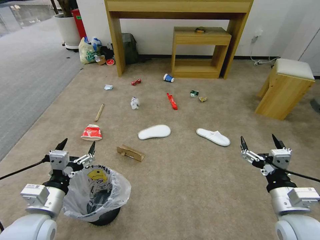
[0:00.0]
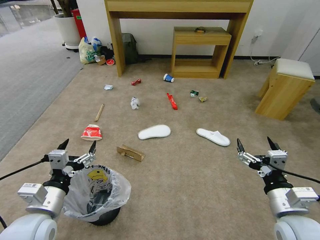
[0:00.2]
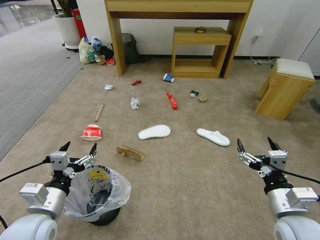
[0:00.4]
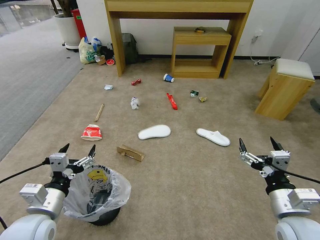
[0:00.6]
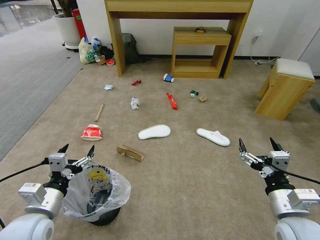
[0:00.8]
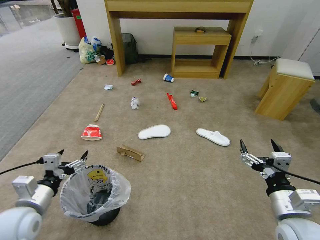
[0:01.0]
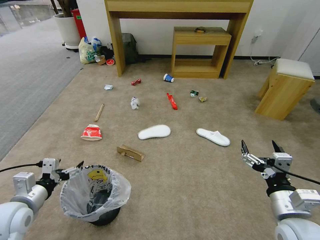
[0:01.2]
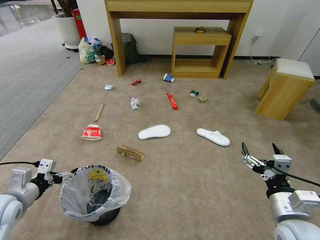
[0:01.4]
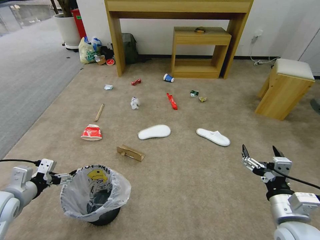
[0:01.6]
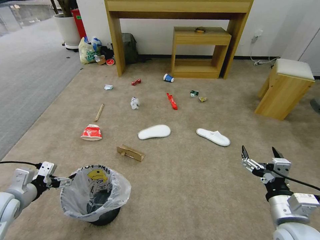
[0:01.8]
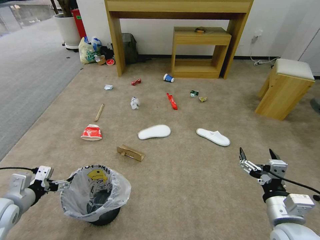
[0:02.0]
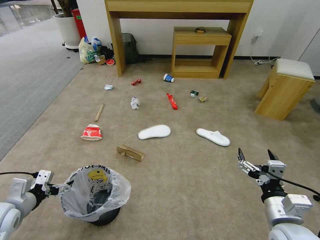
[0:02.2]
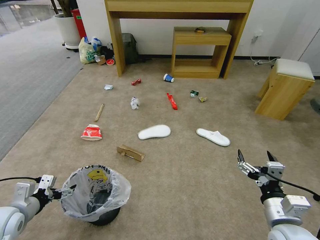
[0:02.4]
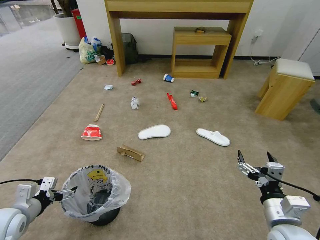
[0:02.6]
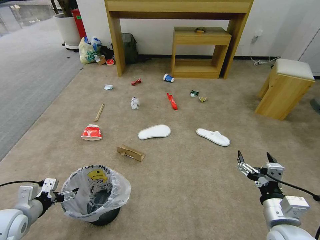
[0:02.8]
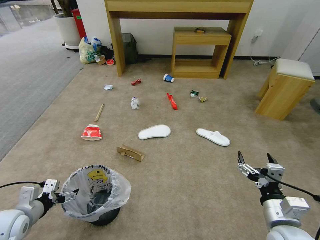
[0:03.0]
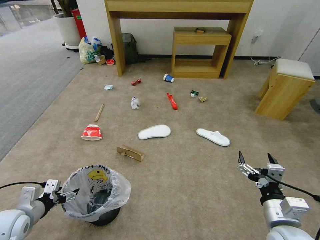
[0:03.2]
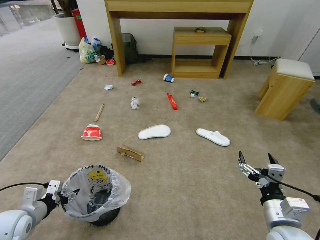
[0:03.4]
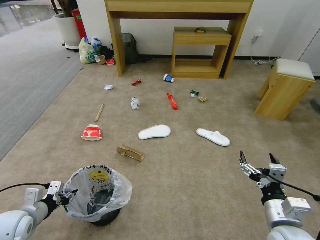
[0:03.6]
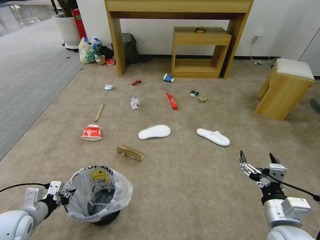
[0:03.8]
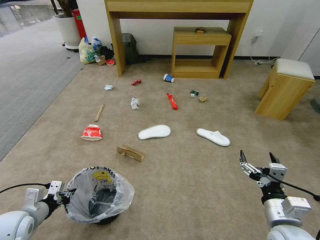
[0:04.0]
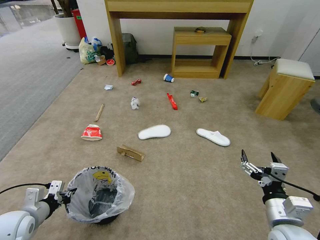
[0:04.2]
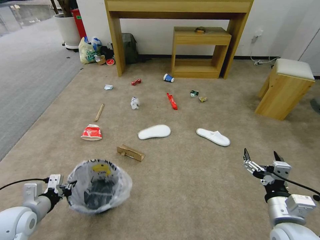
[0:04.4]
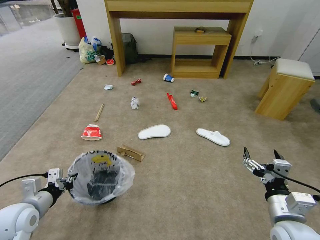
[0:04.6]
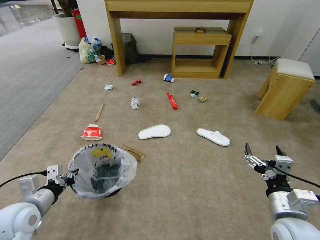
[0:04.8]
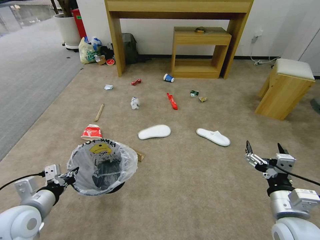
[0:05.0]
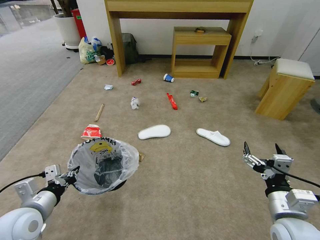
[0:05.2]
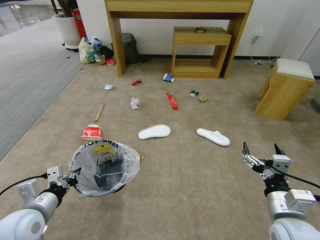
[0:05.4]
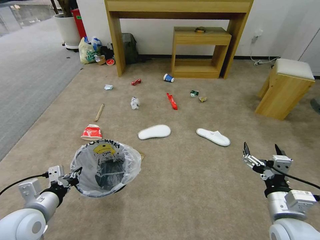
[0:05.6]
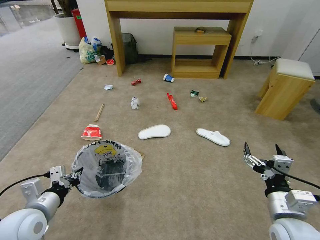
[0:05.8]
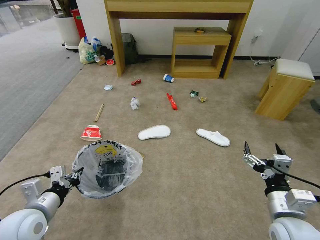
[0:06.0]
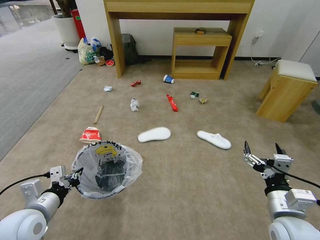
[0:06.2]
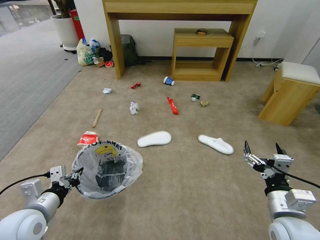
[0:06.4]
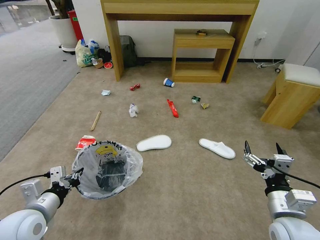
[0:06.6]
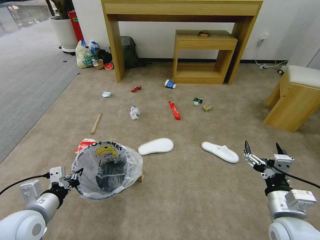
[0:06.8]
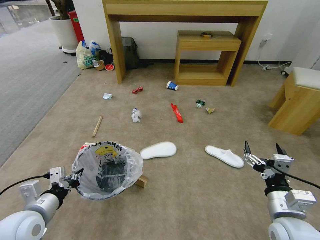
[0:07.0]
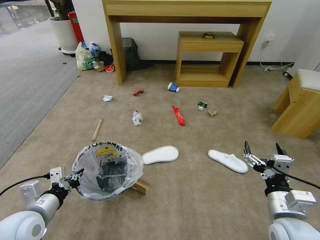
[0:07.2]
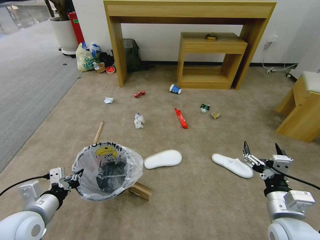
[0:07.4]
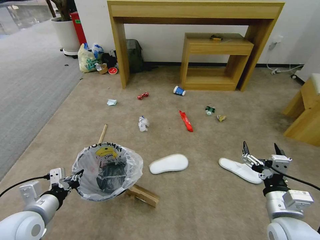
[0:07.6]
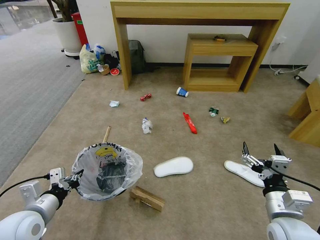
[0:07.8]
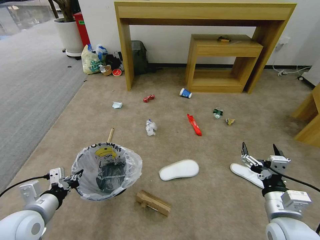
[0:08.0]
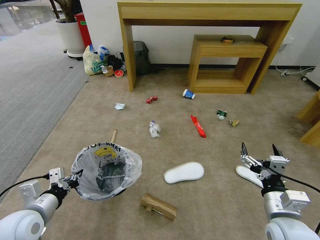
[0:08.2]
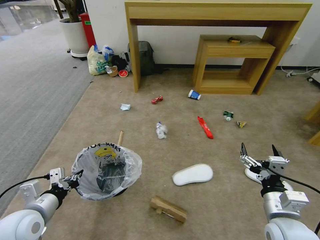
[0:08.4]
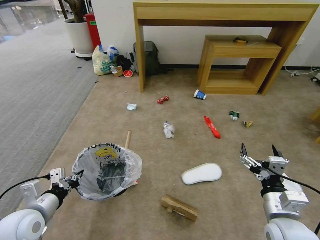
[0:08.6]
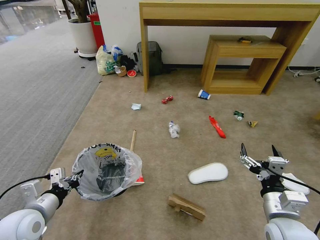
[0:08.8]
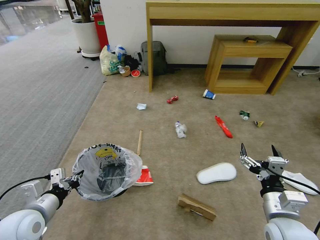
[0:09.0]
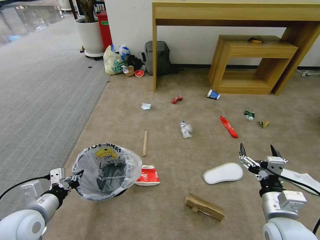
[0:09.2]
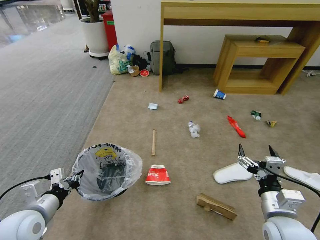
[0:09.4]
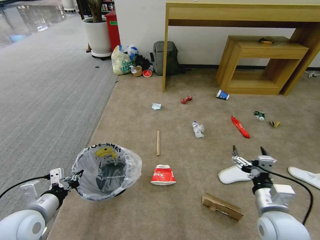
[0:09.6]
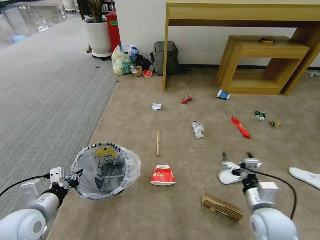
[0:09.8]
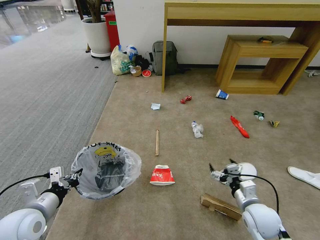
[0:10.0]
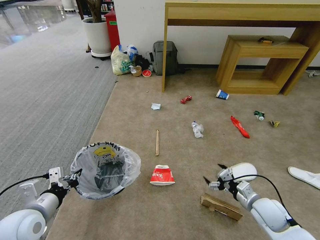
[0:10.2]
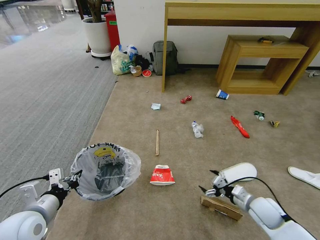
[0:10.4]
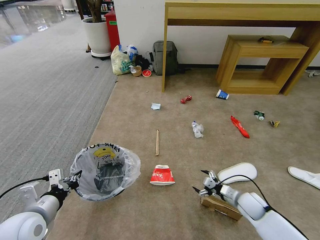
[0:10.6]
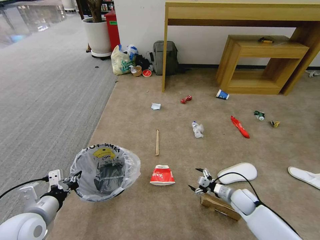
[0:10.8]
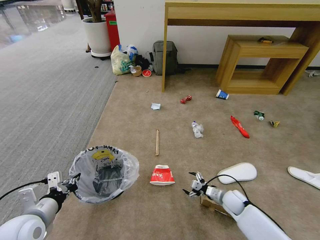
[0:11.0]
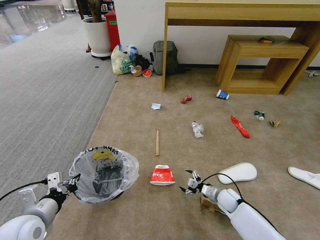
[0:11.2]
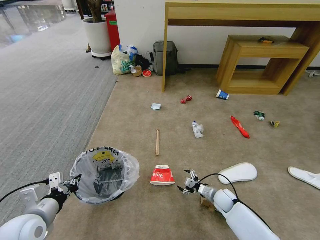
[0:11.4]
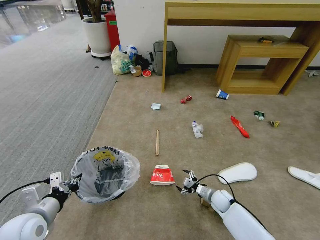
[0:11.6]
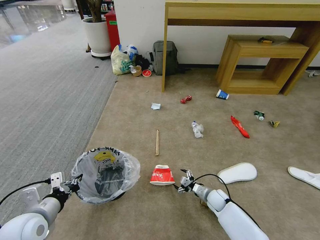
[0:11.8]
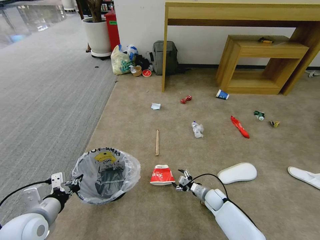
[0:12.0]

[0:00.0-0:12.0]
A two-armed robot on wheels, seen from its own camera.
Task of the whole recording: Pick up the trash bin and place the garbage on the floor into it.
0:01.6 to 0:03.0: The left gripper shifts approximately 5 cm downward.
0:03.0 to 0:04.4: The left gripper closes its fingers.
0:04.4 to 0:06.0: The left gripper heads to the right, covering some 5 cm.
0:09.0 to 0:10.4: The right gripper heads downward, forward and to the right, covering about 15 cm.
0:10.4 to 0:12.0: The right gripper goes some 20 cm downward, to the left and forward.

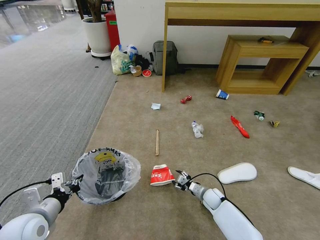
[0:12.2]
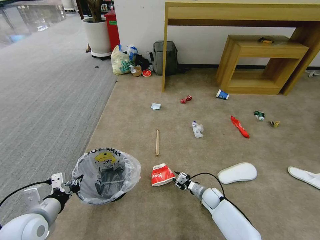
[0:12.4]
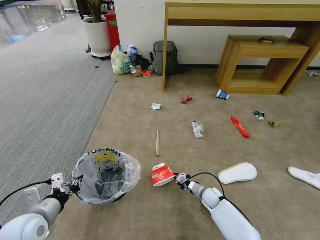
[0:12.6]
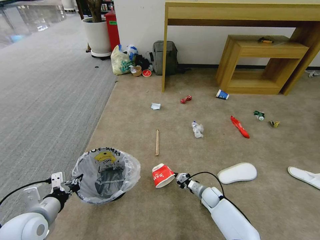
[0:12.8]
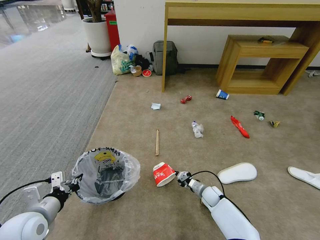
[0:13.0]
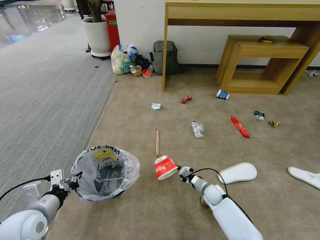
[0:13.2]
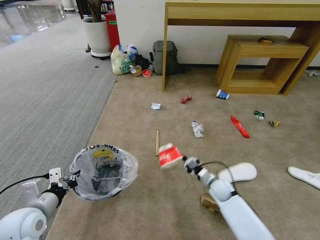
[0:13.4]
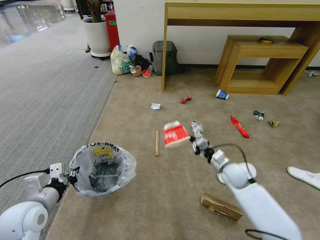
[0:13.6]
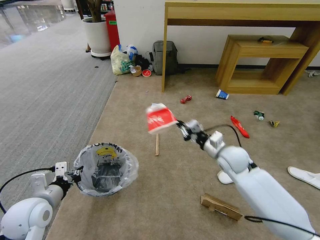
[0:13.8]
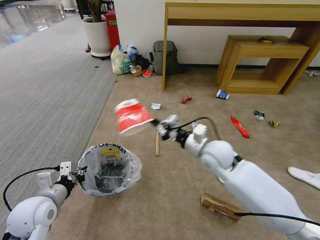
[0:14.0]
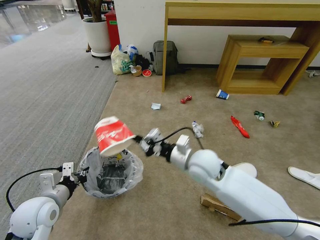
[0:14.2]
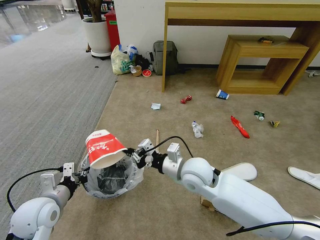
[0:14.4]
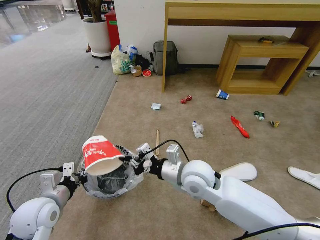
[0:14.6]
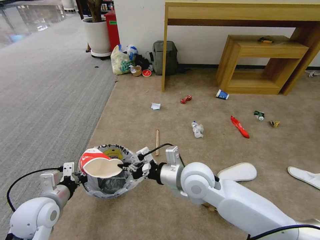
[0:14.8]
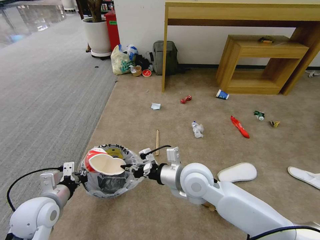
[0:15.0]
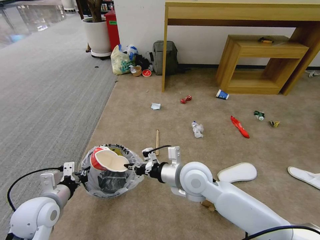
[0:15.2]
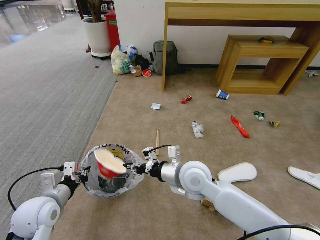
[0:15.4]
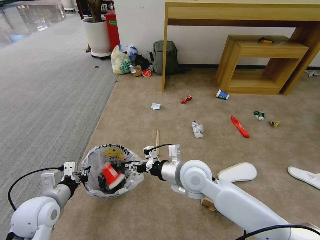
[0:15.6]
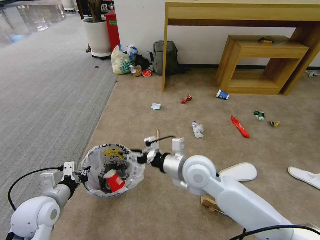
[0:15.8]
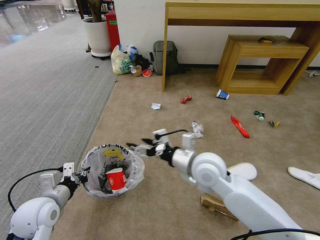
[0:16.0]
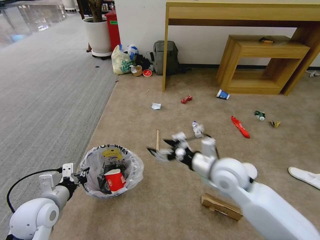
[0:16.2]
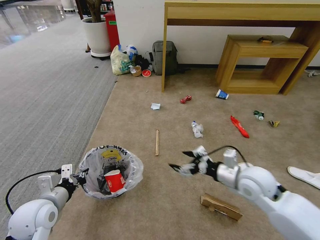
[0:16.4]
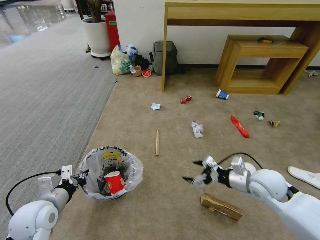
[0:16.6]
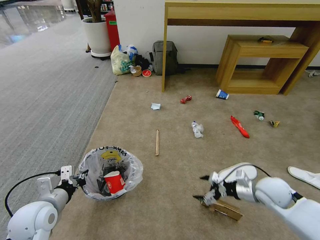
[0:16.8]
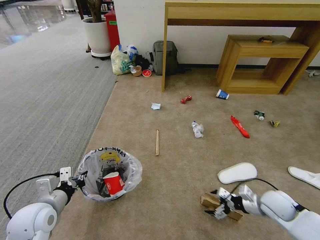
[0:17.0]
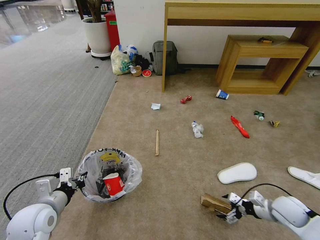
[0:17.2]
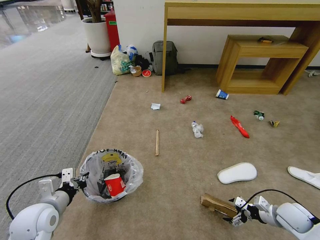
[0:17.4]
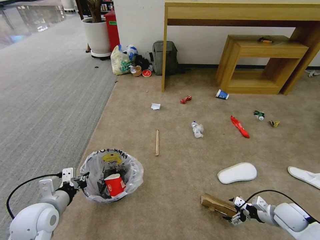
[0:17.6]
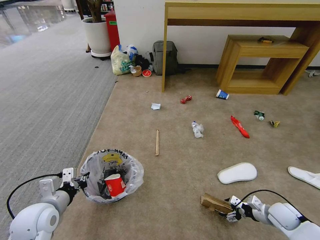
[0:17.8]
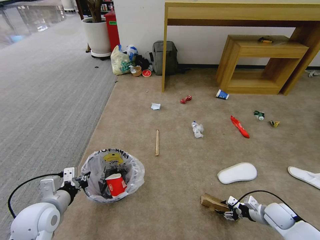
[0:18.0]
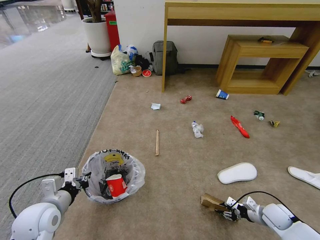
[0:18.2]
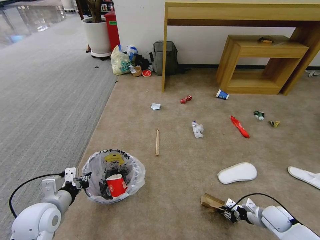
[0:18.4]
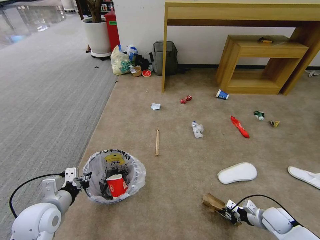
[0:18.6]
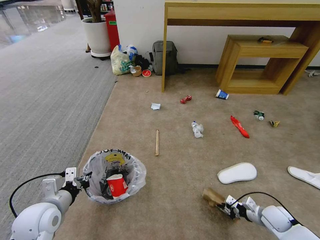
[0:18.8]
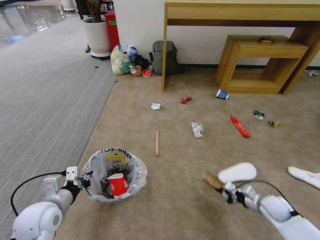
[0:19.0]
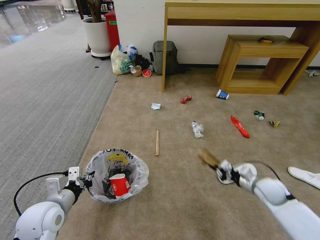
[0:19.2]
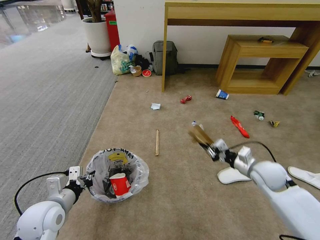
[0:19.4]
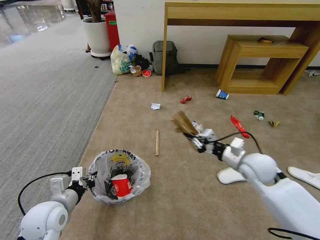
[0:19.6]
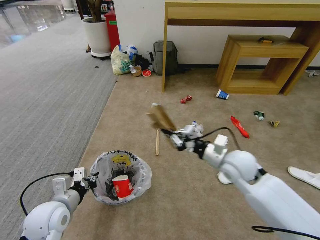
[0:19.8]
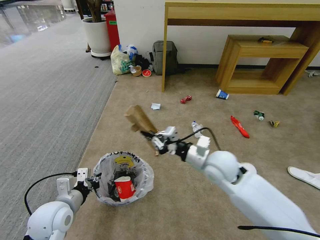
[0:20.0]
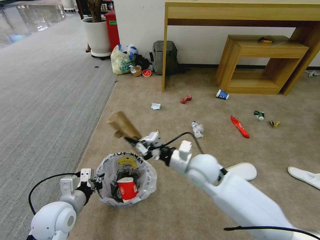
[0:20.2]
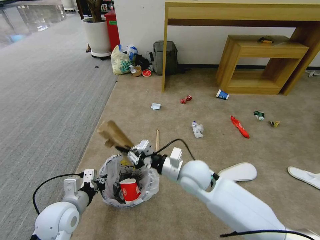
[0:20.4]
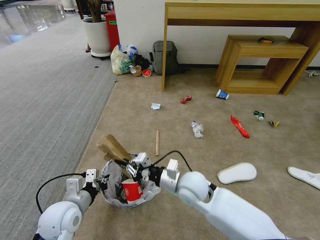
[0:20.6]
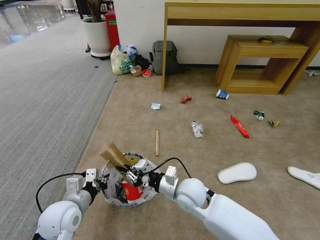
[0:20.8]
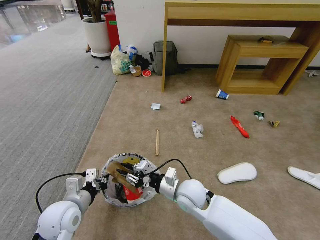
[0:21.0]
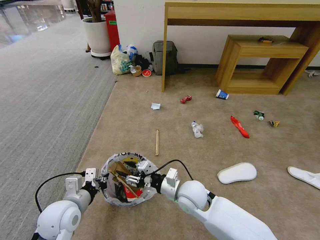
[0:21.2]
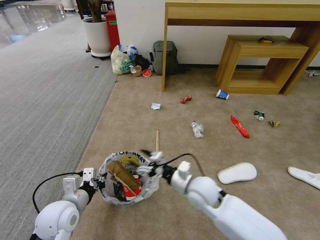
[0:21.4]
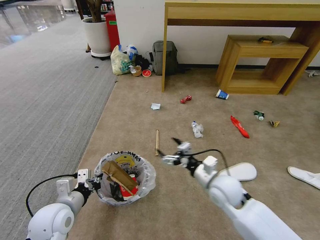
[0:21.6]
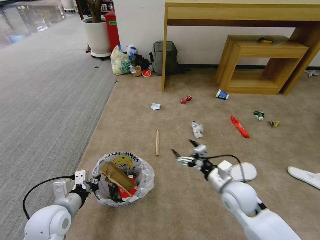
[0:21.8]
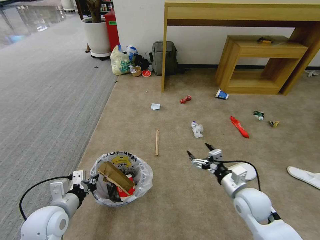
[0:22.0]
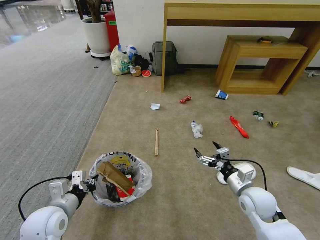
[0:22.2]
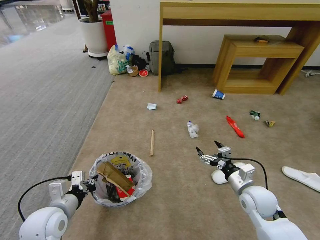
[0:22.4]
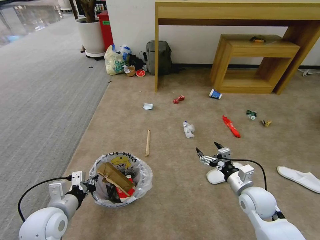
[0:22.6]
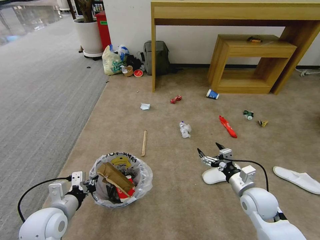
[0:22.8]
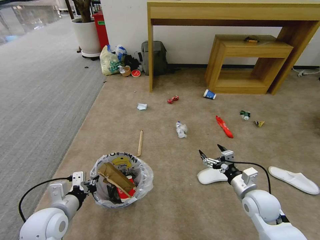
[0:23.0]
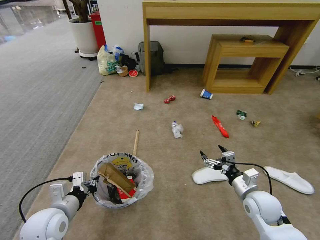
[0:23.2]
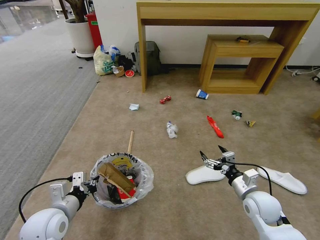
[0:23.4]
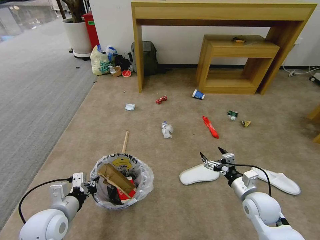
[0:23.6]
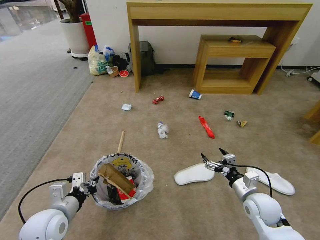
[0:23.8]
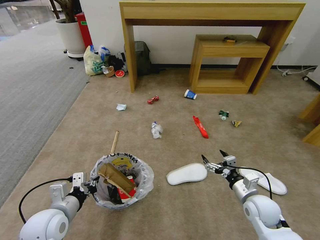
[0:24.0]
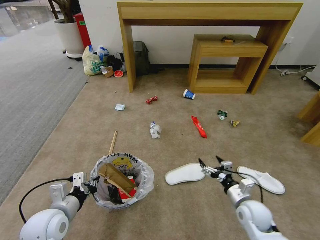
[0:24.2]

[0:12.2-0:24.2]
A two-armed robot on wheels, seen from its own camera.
Task of the whole recording: Pick up the trash bin and place the garbage on the floor into it.
0:12.2 to 0:13.8: The right gripper heads upward, covering about 25 cm, and closes.
0:13.8 to 0:15.2: The right gripper travels to the left and backward by approximately 20 cm.
0:15.2 to 0:16.6: The right gripper heads to the right, covering approximately 20 cm, and opens its fingers.
0:16.6 to 0:18.2: The right gripper heads downward and to the right, covering roughly 25 cm, and closes up.
0:18.2 to 0:19.8: The right gripper moves upward and to the left, roughly 35 cm, and closes its fingers.
0:19.8 to 0:21.2: The right gripper travels to the left and downward by roughly 15 cm, and opens its fingers.
0:21.2 to 0:22.6: The right gripper is displaced to the right by about 20 cm, and opens.
0:22.6 to 0:24.2: The right gripper is displaced downward by about 5 cm.
